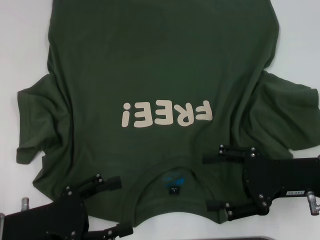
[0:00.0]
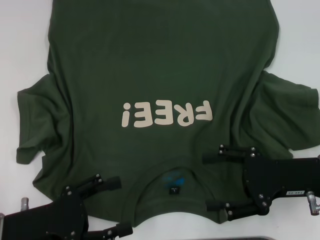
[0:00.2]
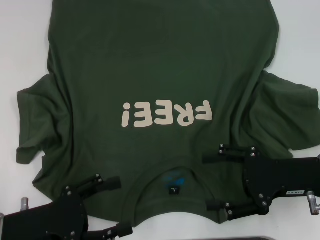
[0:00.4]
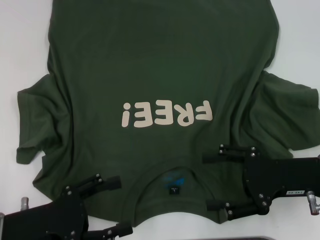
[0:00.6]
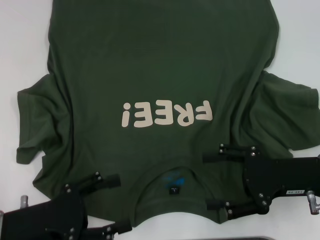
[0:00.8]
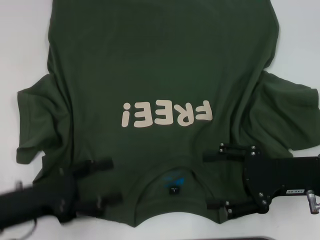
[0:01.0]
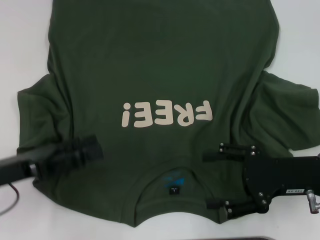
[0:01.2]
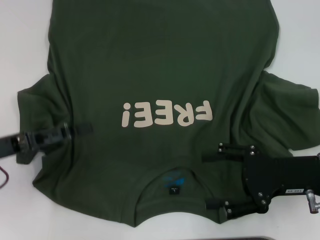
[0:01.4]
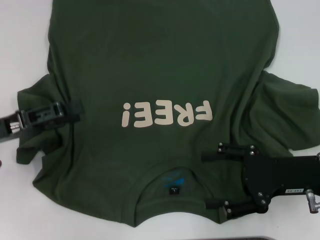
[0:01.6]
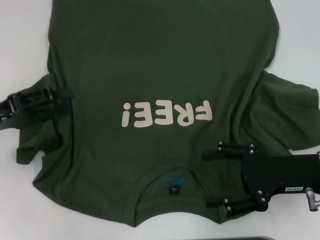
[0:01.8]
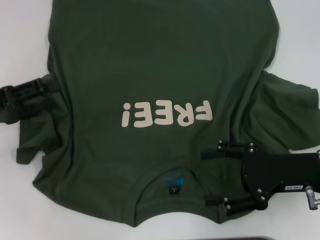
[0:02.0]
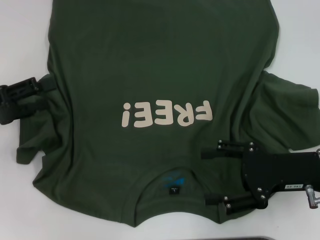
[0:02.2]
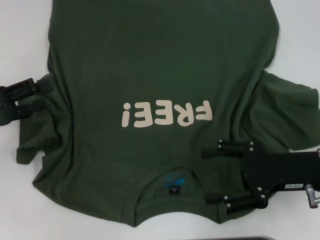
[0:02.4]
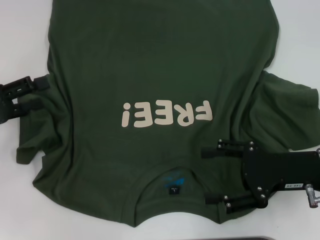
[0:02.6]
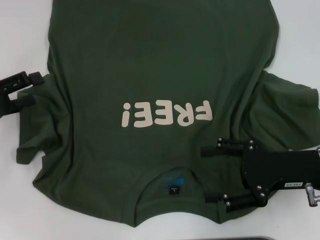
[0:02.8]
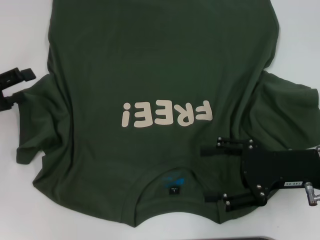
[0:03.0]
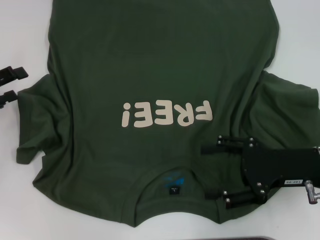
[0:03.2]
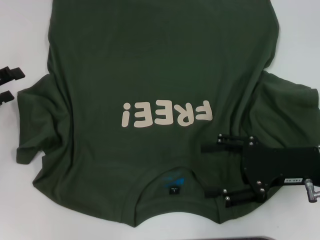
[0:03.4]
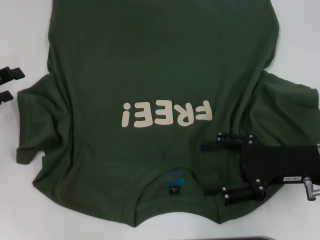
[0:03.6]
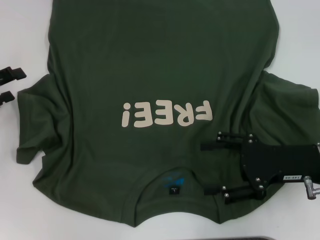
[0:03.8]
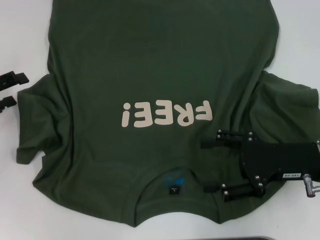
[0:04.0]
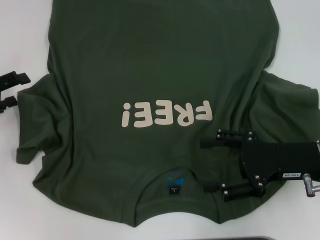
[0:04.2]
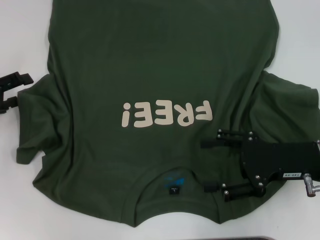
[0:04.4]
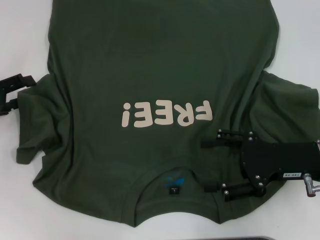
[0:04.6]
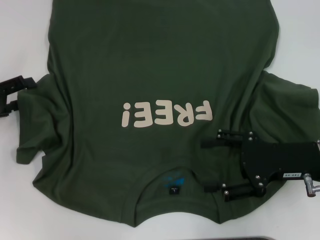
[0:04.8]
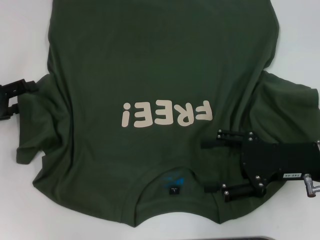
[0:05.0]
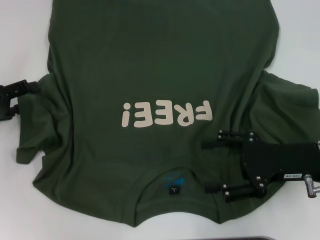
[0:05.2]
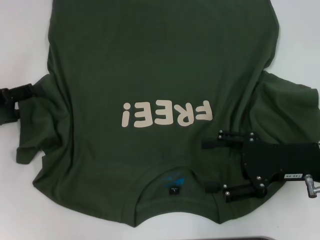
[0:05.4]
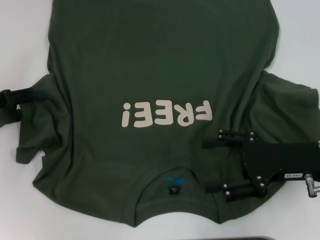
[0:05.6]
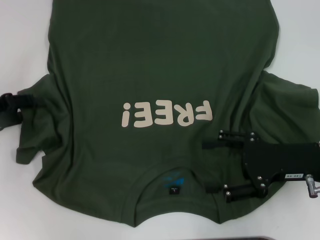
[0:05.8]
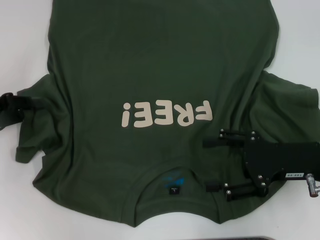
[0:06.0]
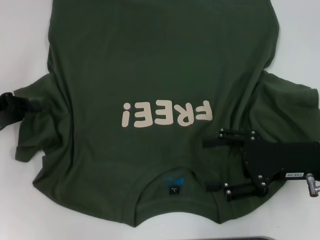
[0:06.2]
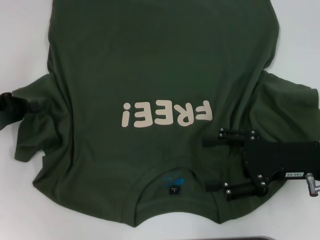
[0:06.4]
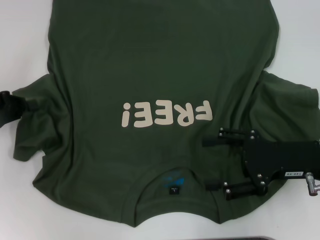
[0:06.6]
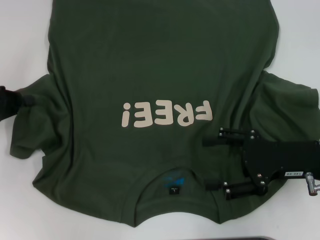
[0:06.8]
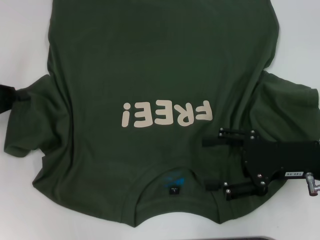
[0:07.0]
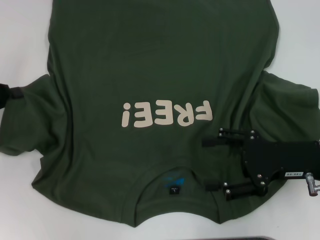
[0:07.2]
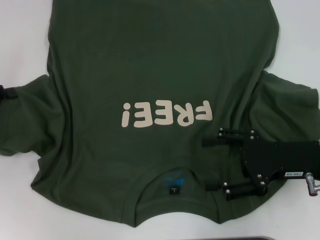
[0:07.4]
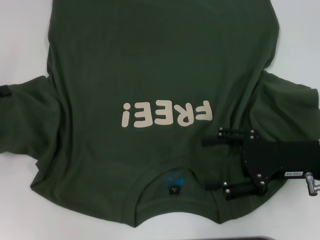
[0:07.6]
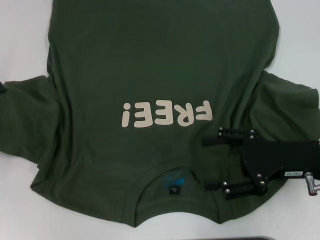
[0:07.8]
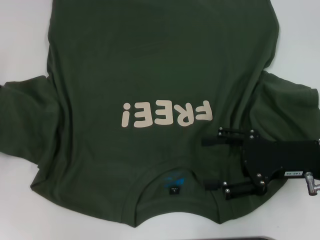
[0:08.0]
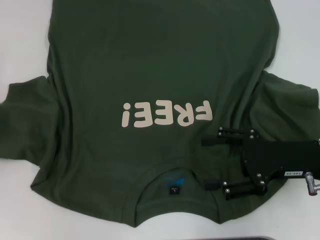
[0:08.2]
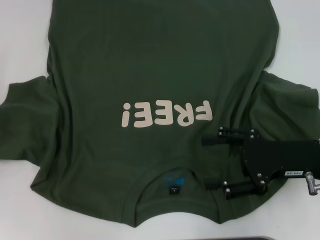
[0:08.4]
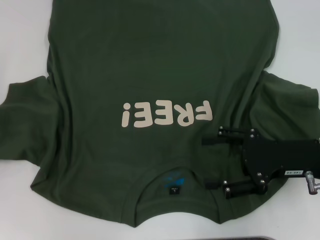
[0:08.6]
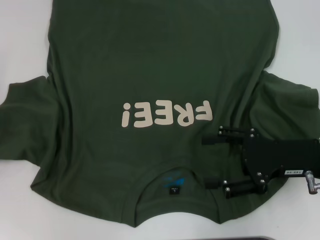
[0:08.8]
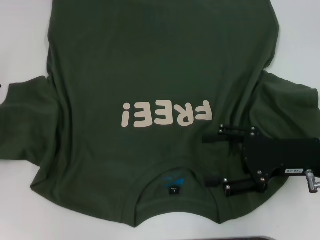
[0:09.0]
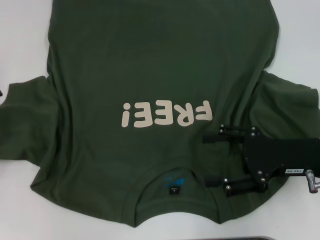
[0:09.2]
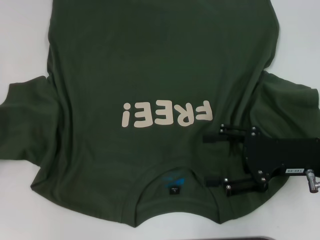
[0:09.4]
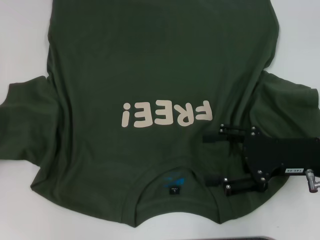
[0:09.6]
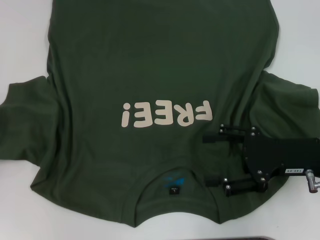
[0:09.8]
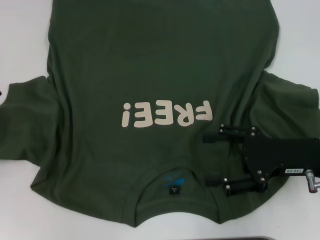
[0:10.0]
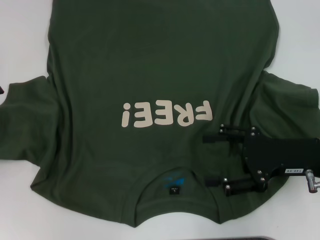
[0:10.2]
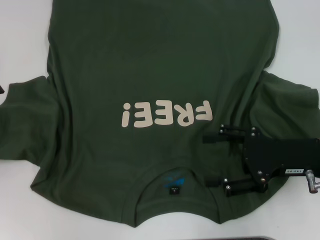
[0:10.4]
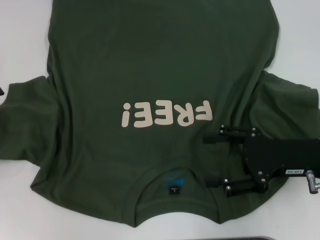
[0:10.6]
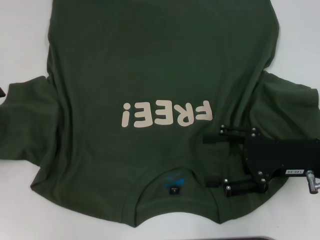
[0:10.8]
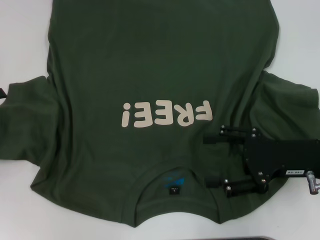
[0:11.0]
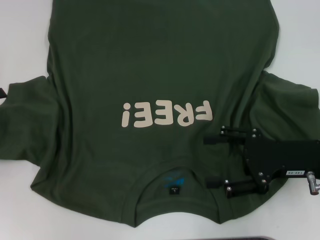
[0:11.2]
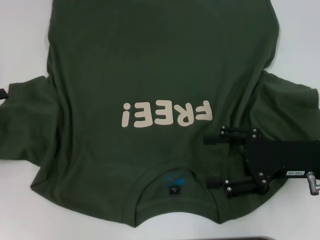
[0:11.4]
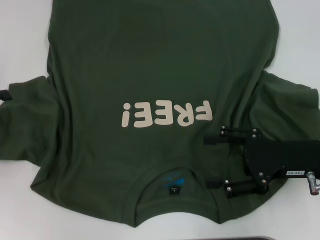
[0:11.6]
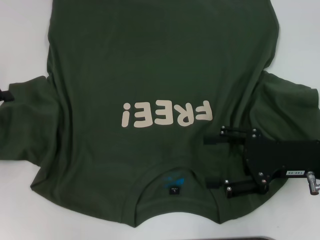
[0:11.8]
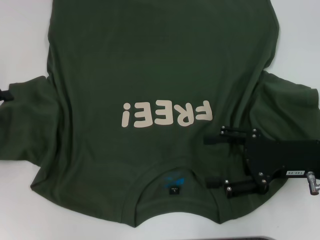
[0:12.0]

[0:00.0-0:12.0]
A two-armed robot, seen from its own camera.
0:00.0 to 0:01.6: The left gripper moves forward, upward and to the left, approximately 10 cm.
0:01.6 to 0:03.0: The left gripper moves to the left, some 5 cm.
0:03.0 to 0:04.4: The grippers stay close to where they were, moving slightly.
0:04.4 to 0:06.0: The left gripper closes its fingers.
0:06.0 to 0:07.6: The left gripper closes its fingers.
0:07.6 to 0:09.0: The grippers move only a little.
0:10.4 to 0:12.0: Both grippers stay put.

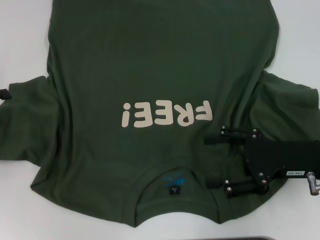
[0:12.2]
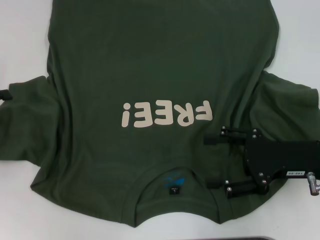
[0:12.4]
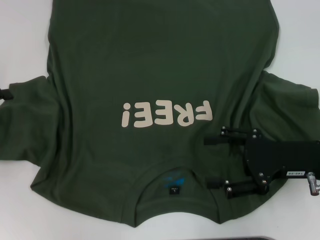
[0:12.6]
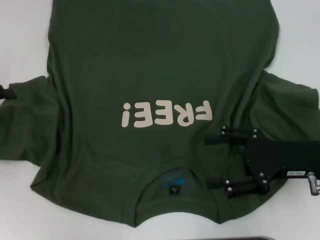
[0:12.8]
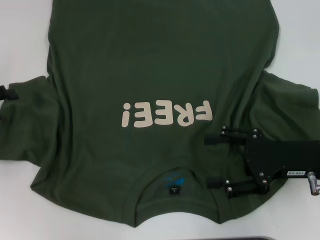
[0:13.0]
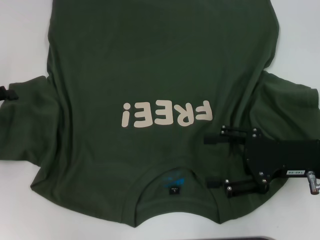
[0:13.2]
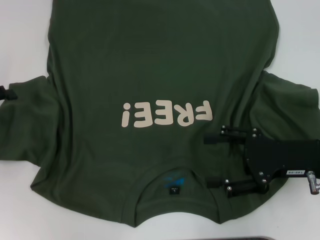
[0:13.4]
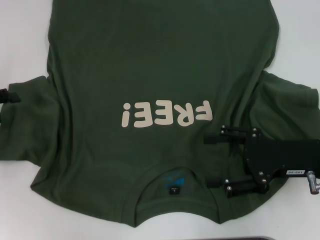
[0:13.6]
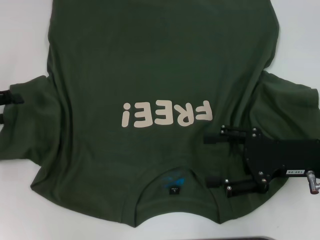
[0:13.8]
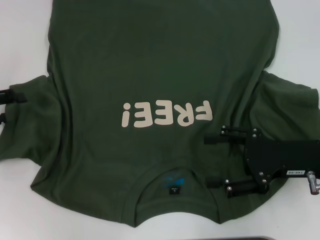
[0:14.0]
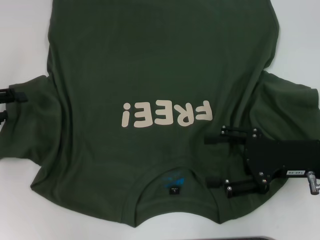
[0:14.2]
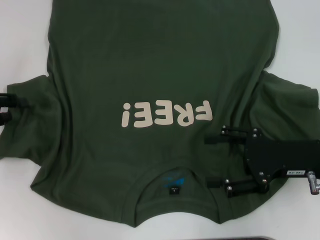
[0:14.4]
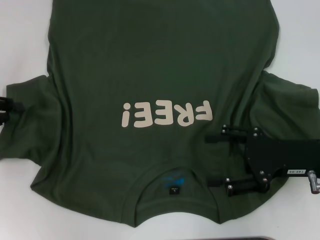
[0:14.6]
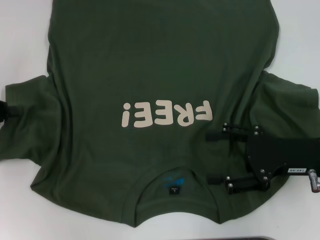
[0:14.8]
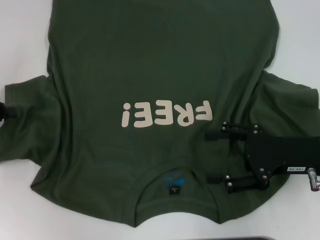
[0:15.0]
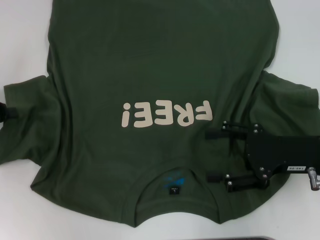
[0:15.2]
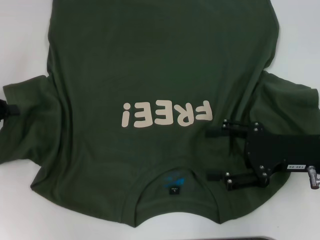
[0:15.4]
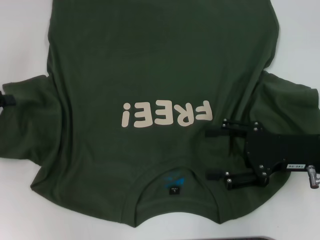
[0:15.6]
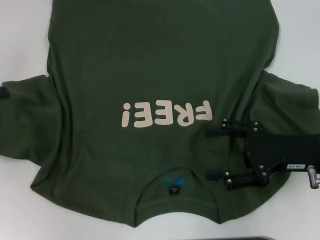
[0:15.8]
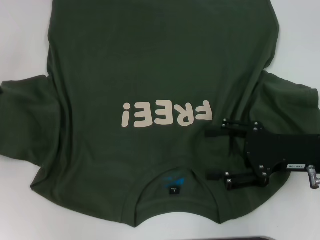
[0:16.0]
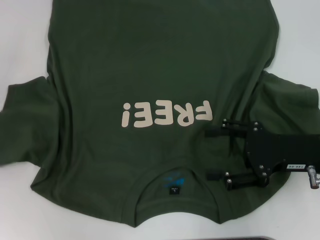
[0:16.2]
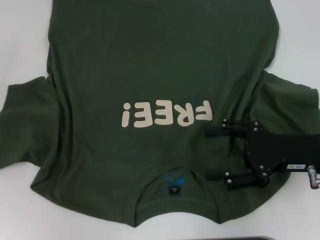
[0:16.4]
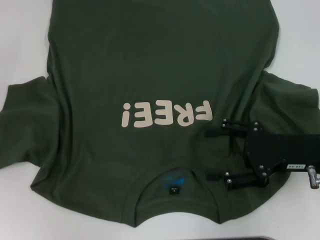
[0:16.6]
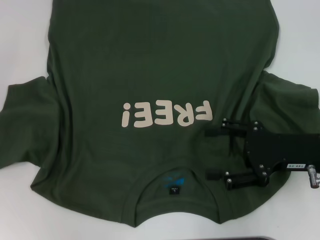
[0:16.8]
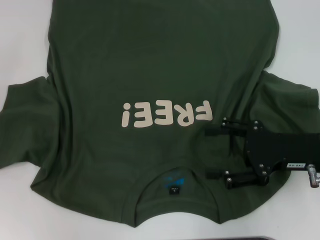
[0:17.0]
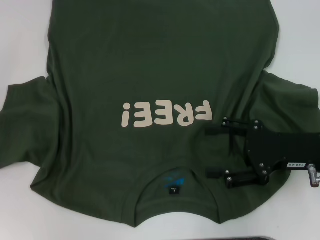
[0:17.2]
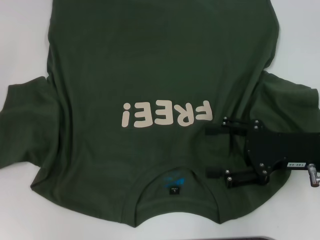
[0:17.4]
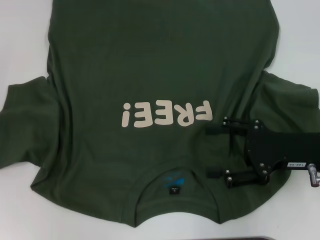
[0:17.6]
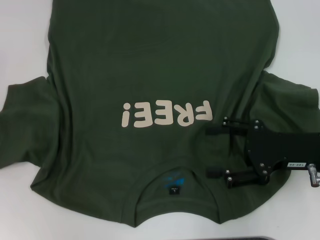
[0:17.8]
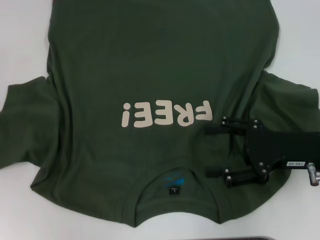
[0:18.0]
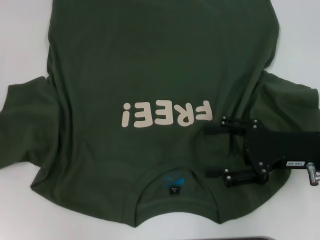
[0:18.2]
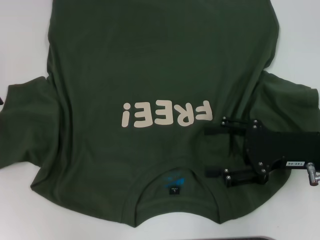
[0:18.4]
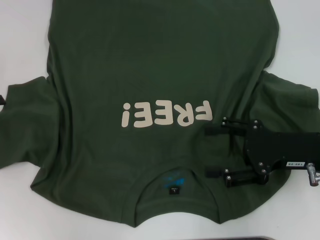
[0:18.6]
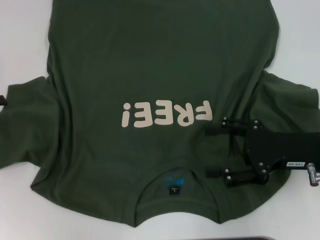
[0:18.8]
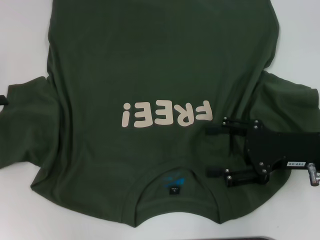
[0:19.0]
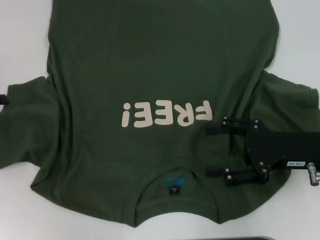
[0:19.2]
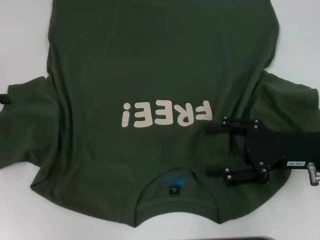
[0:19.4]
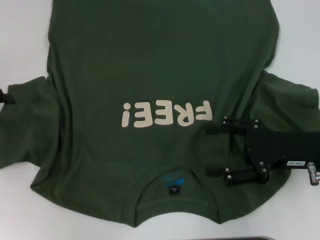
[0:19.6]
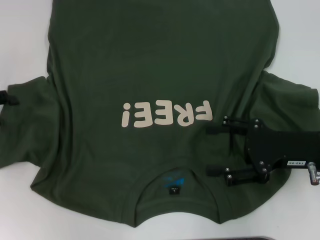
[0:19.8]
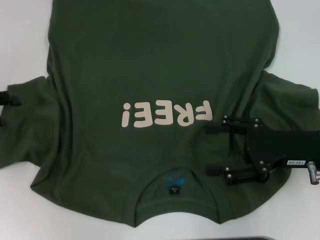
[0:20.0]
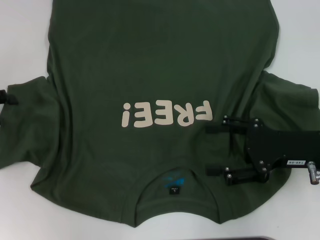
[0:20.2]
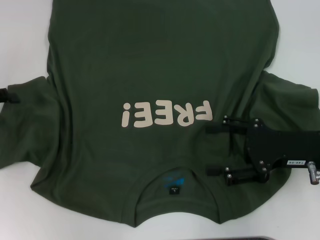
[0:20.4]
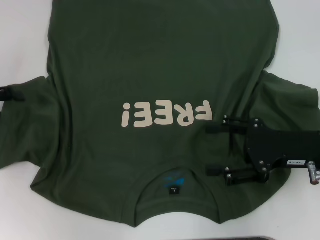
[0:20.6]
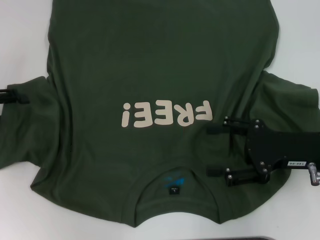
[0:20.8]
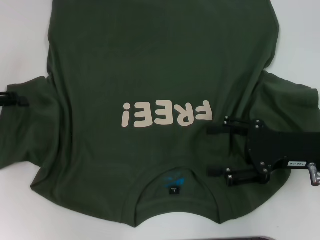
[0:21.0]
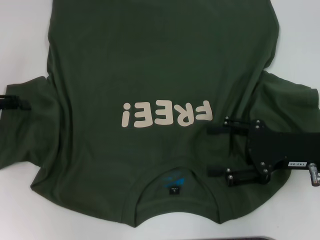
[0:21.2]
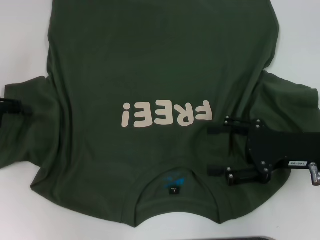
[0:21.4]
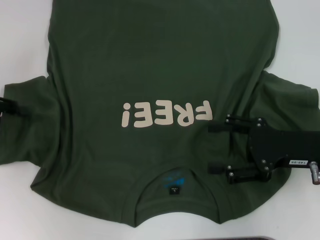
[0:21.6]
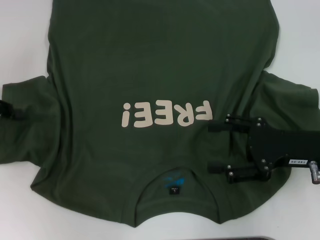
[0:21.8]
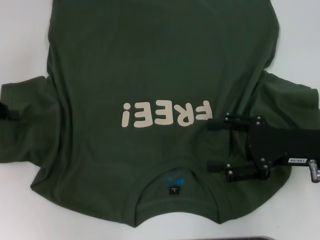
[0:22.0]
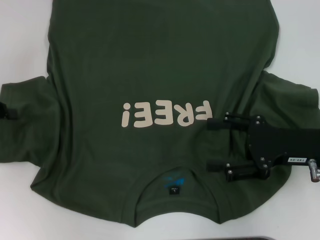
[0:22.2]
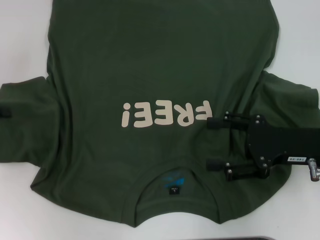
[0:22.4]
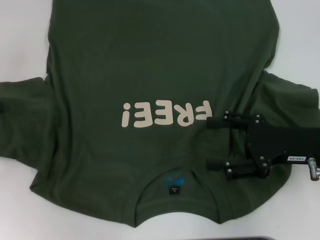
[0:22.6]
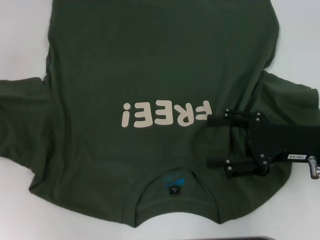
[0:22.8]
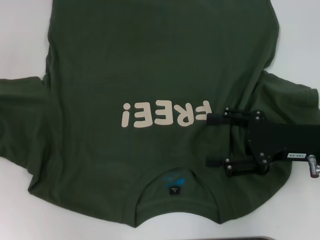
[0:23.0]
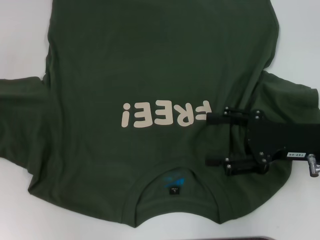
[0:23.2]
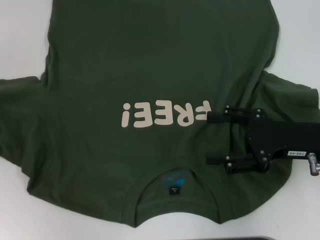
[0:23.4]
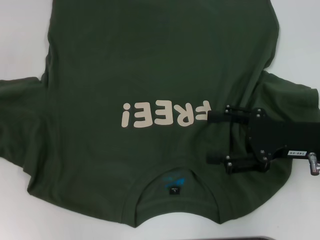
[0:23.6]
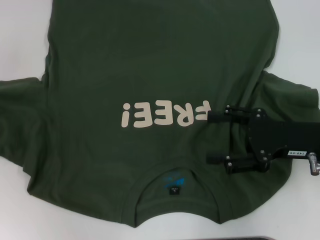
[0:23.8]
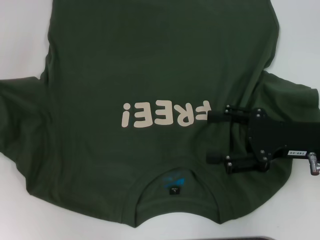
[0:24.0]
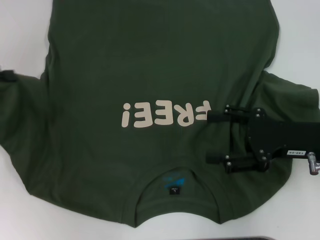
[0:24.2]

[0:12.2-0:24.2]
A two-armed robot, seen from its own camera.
0:12.2 to 0:13.8: The grippers move only a little.
0:13.8 to 0:15.2: The left gripper closes up.
0:15.2 to 0:16.6: There are only small adjustments of the grippers.
0:19.8 to 0:21.2: Neither gripper changes place.
0:21.2 to 0:22.6: The left gripper closes its fingers.
0:22.6 to 0:24.2: The grippers move only a little.
